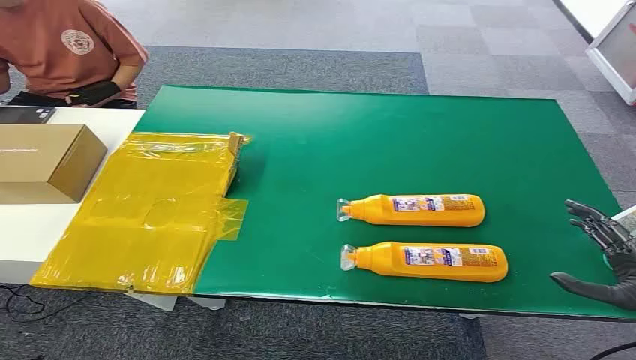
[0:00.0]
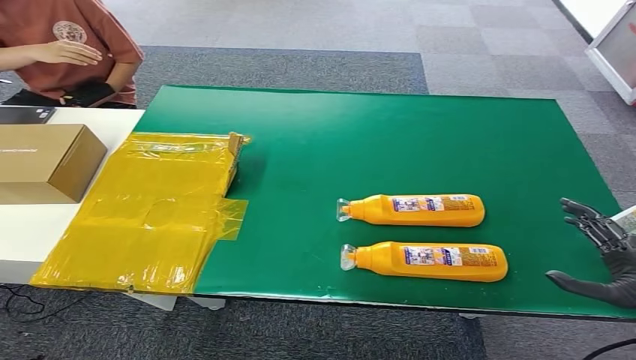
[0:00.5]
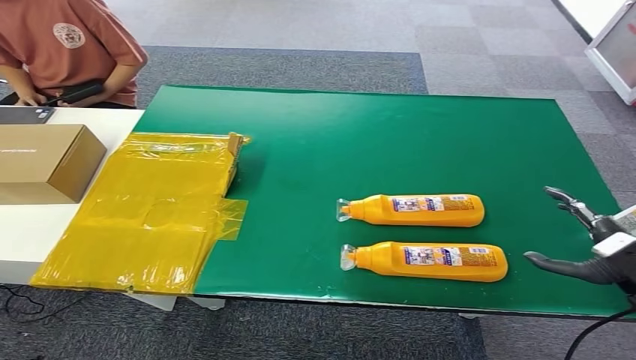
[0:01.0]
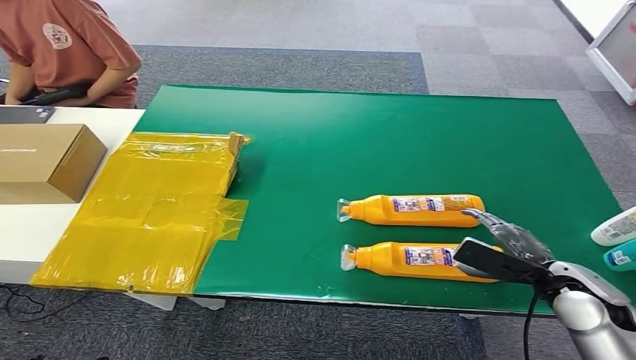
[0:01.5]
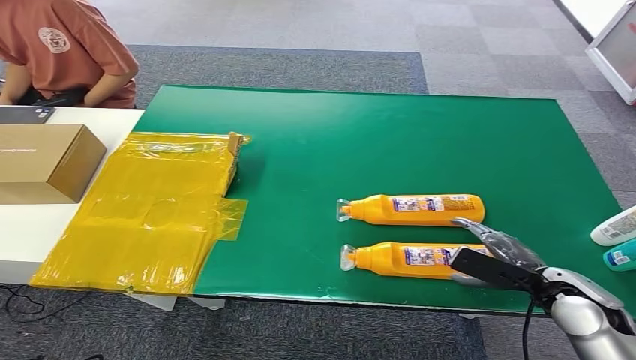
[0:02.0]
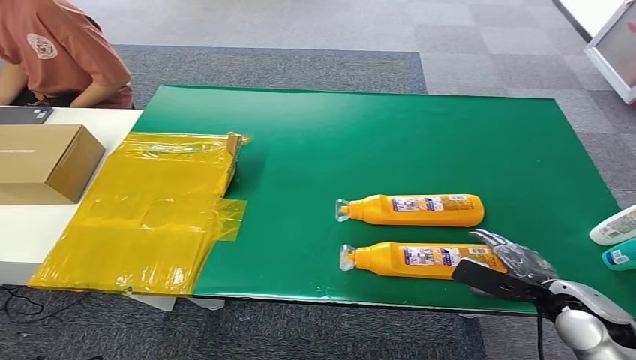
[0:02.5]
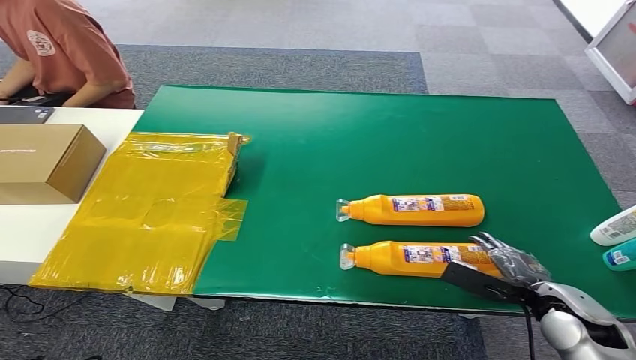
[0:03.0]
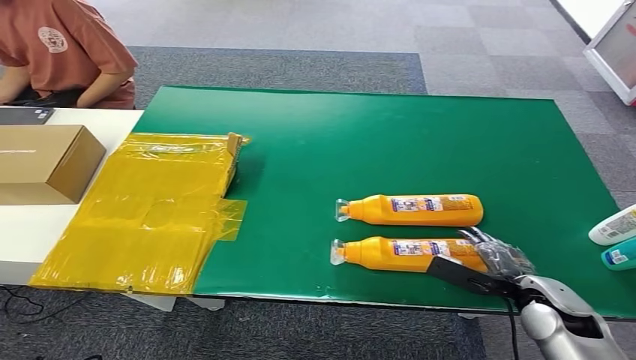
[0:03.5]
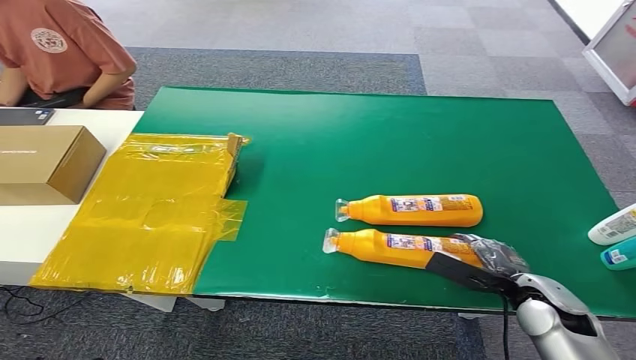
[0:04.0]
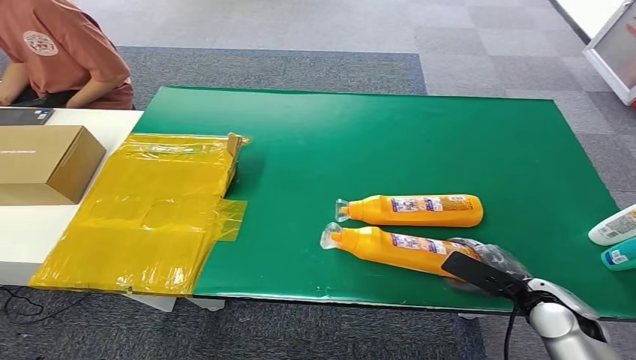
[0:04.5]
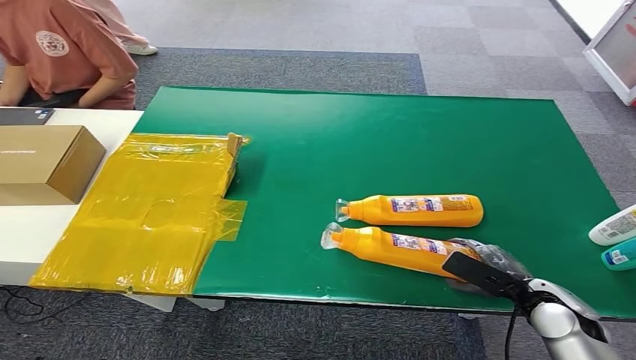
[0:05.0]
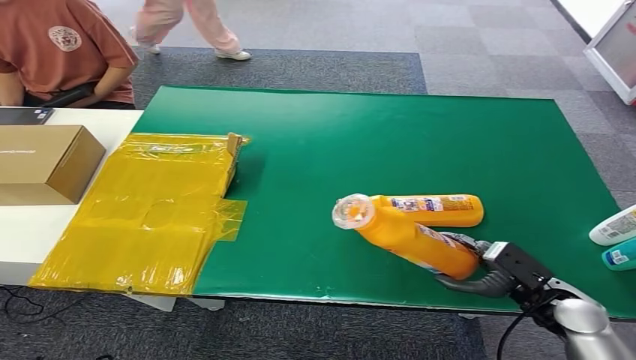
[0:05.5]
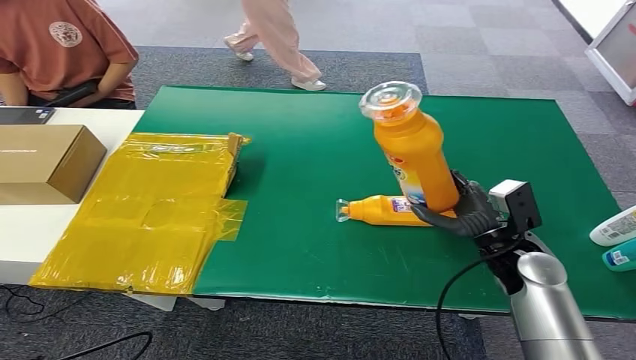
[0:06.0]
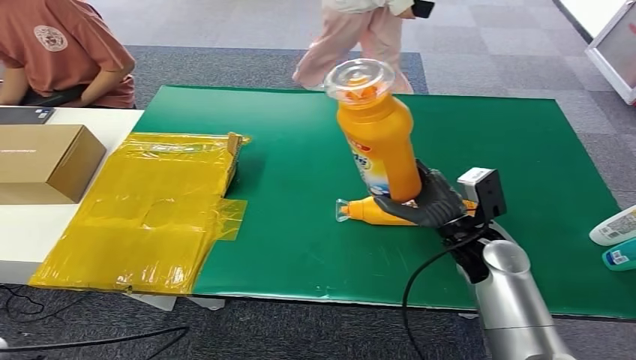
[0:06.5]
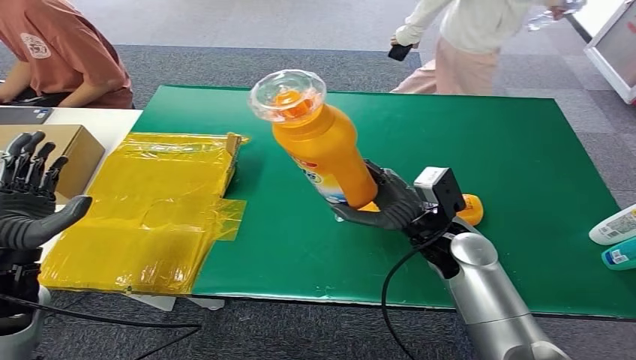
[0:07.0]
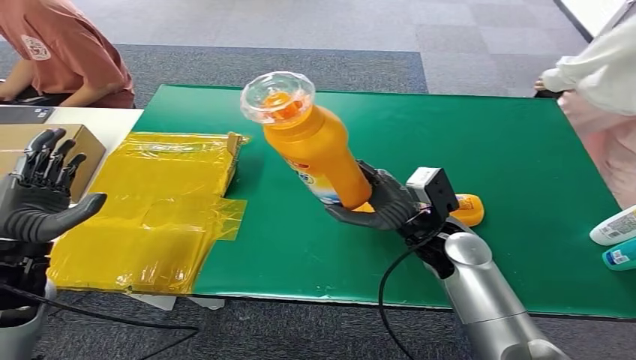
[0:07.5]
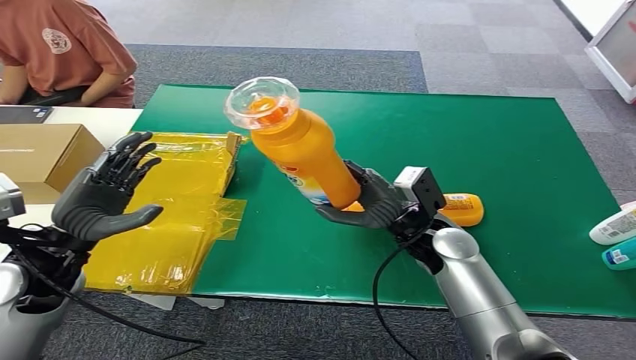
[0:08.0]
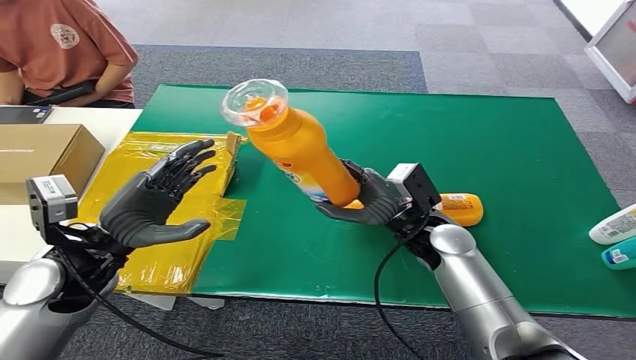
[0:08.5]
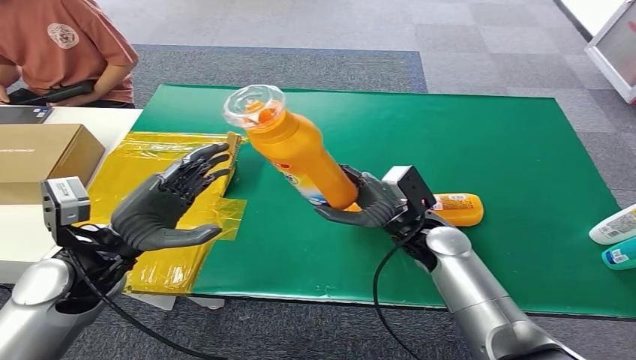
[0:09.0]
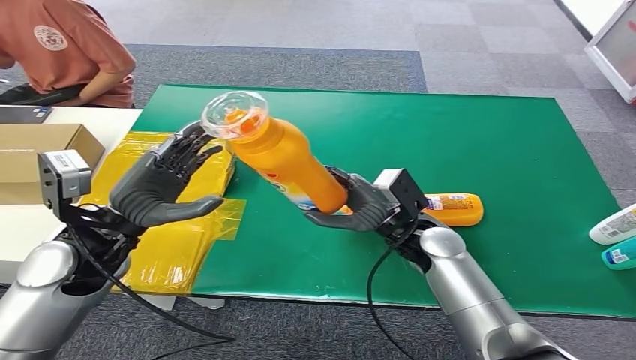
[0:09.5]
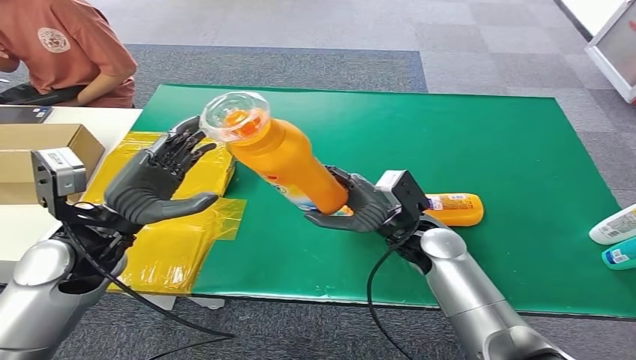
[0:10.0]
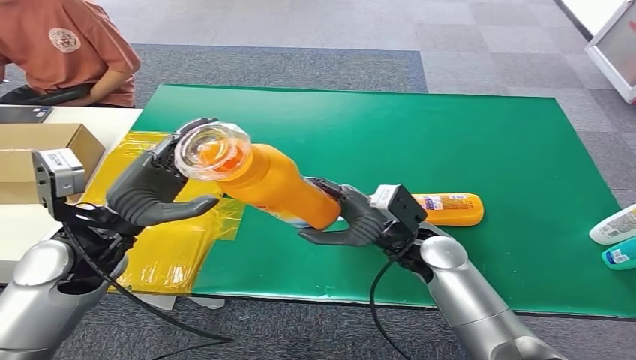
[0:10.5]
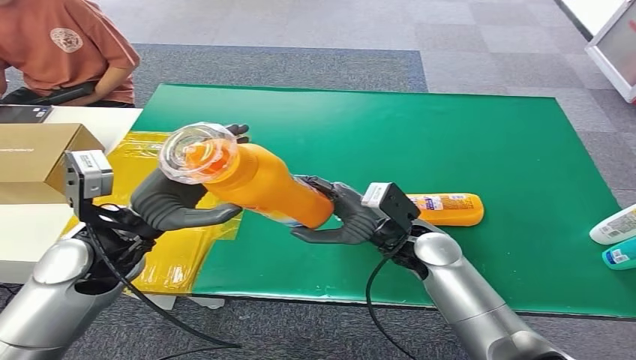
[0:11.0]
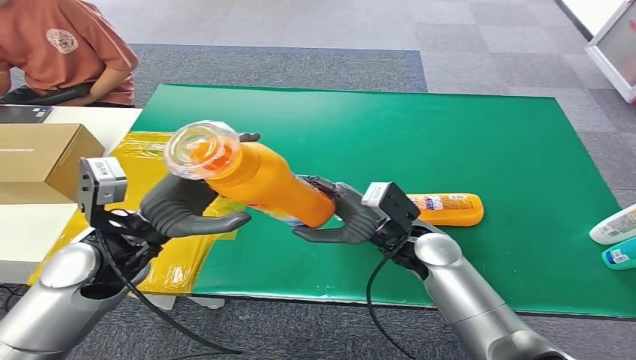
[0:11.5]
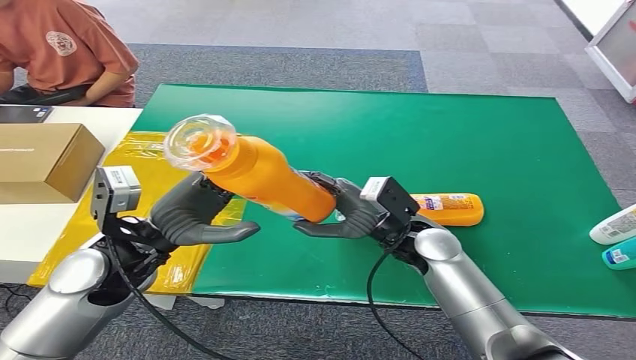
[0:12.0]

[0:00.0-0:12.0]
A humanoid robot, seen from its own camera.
Step, 0:00.0 to 0:07.0: Pick up the bottle from the table.
0:02.0 to 0:04.0: There are only small adjustments of the hands.
0:04.0 to 0:06.0: The left hand shifts approximately 10 cm forward. Meanwhile the right hand is displaced forward and upward by roughly 10 cm.

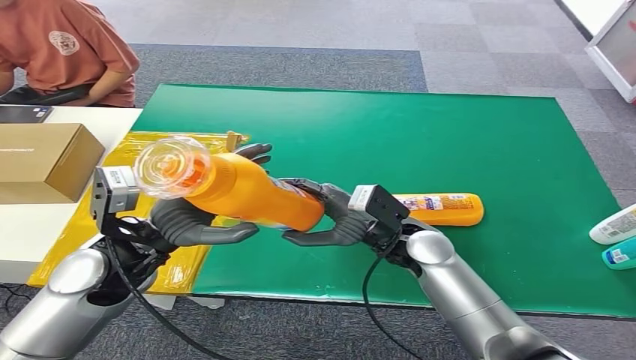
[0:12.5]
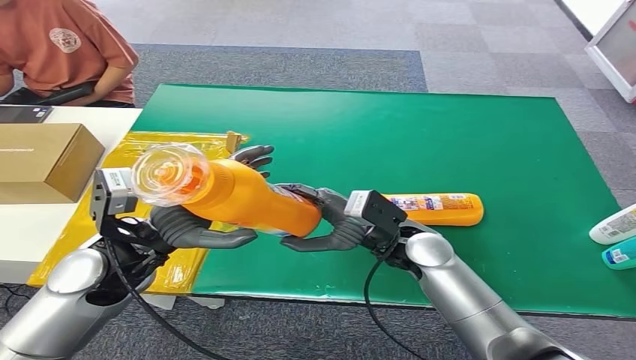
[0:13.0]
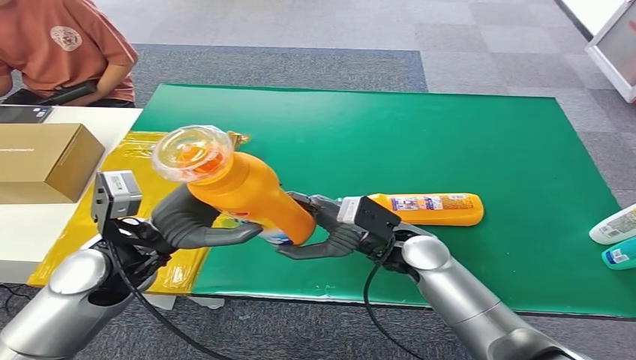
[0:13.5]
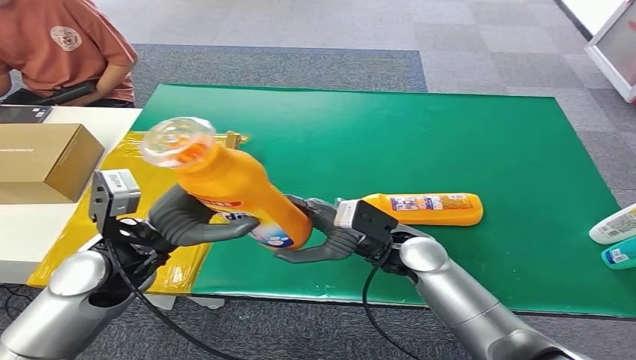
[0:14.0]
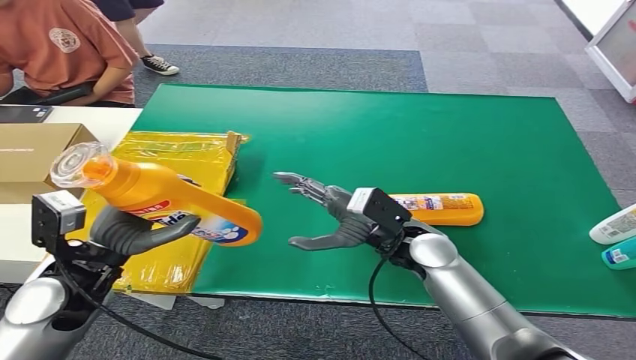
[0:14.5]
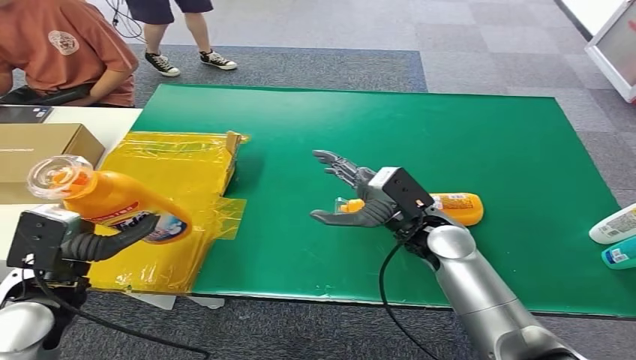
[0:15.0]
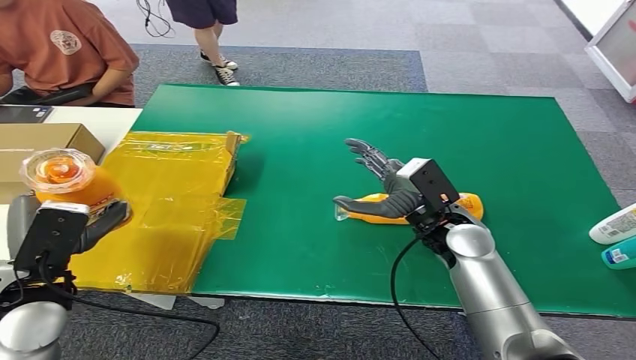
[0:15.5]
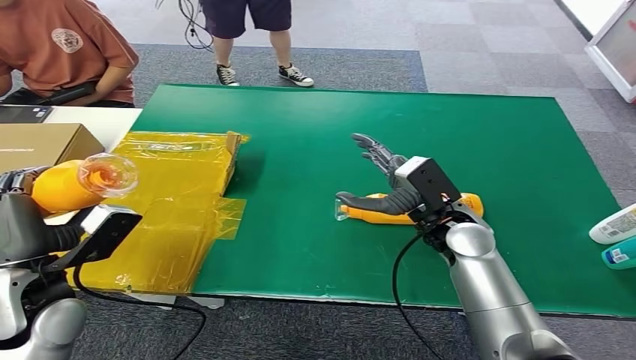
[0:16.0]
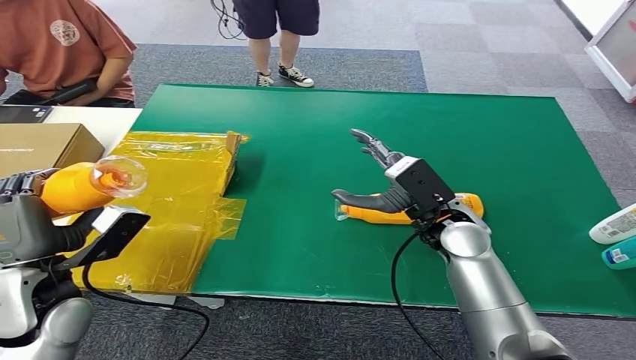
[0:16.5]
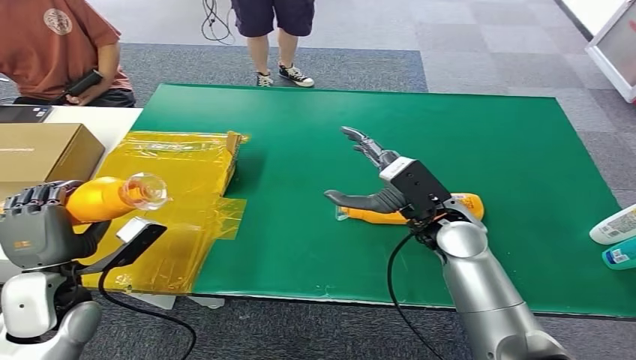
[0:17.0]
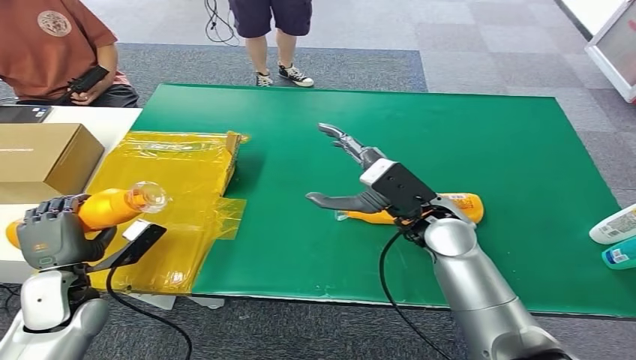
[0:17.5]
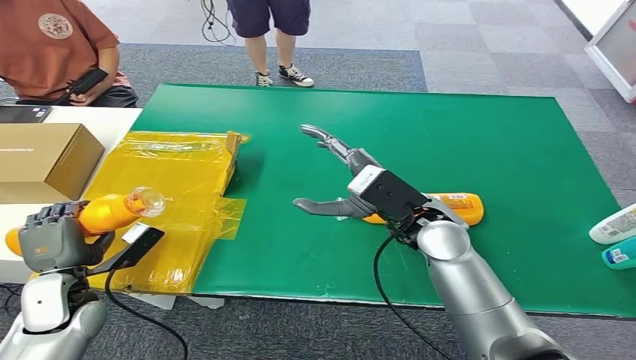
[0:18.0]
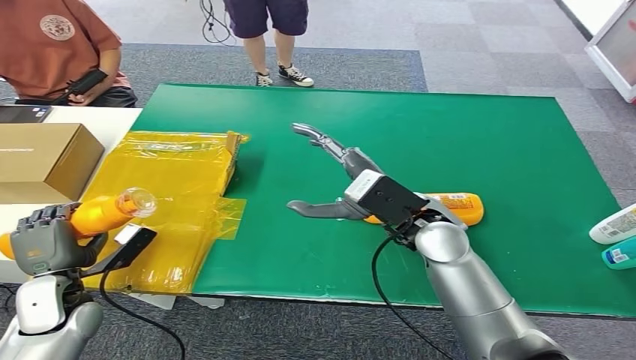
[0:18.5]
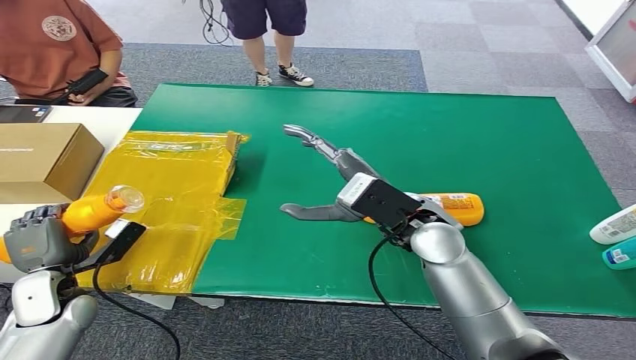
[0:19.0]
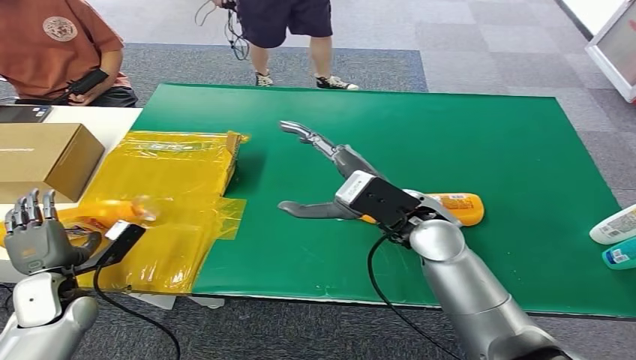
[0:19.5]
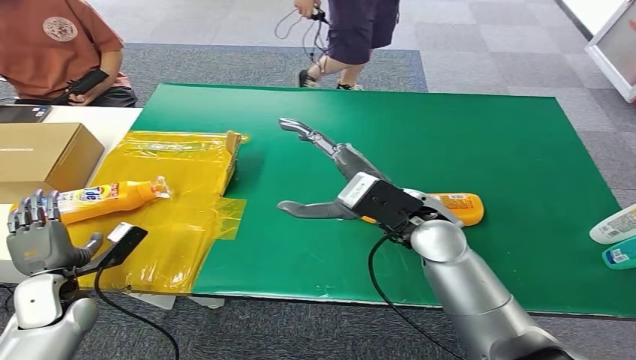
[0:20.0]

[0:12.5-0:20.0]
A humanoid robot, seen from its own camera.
Step, 0:12.5 to 0:20.0: Turn the bottle to the front side.
0:12.5 to 0:14.5: The left hand moves to the left, approximately 5 cm.
